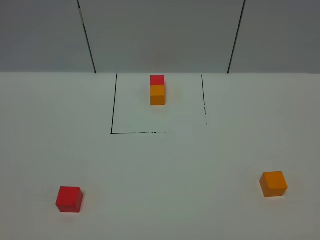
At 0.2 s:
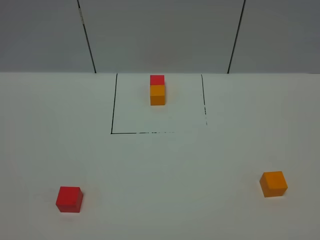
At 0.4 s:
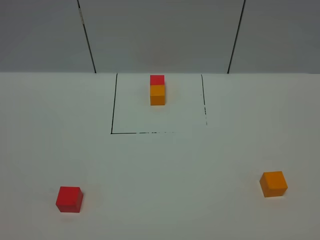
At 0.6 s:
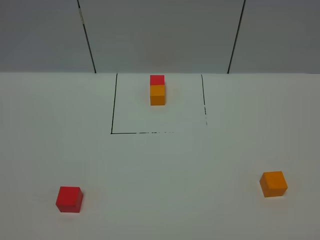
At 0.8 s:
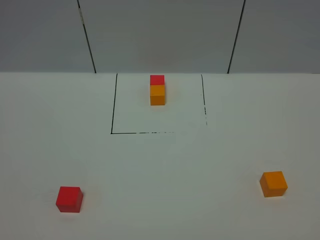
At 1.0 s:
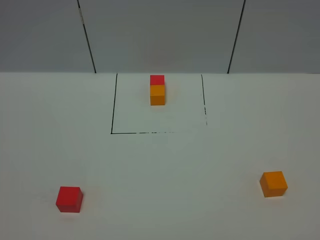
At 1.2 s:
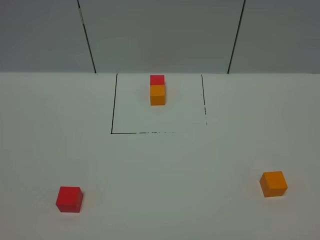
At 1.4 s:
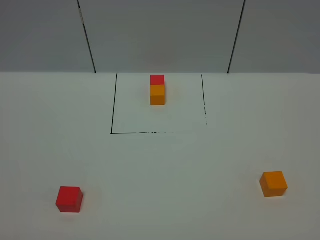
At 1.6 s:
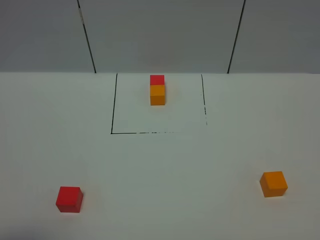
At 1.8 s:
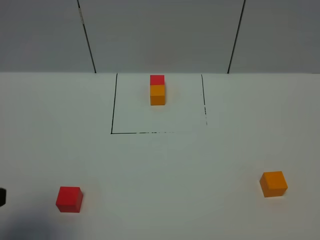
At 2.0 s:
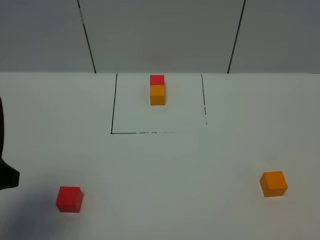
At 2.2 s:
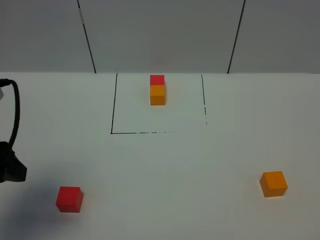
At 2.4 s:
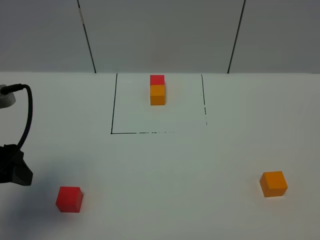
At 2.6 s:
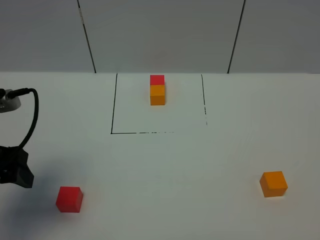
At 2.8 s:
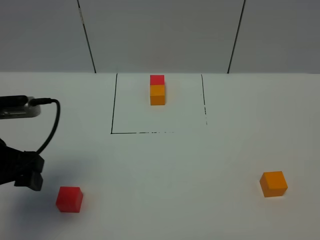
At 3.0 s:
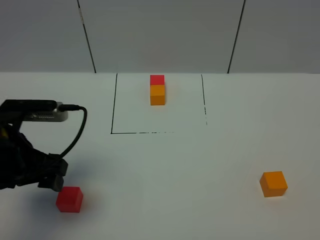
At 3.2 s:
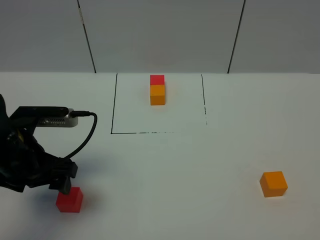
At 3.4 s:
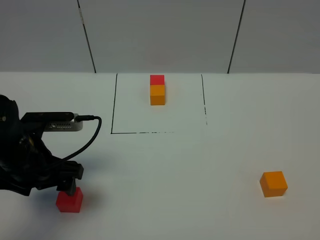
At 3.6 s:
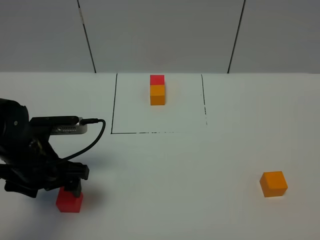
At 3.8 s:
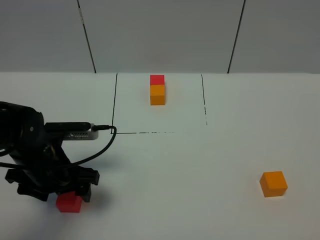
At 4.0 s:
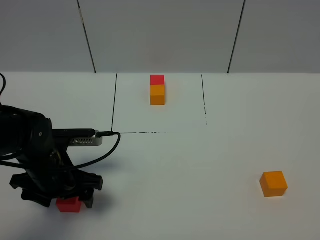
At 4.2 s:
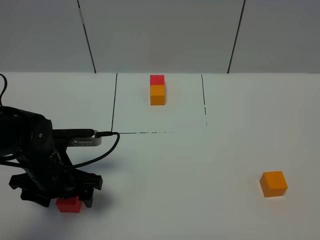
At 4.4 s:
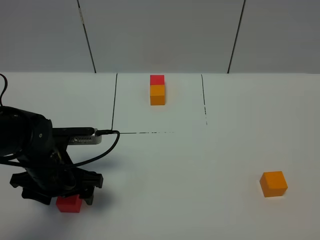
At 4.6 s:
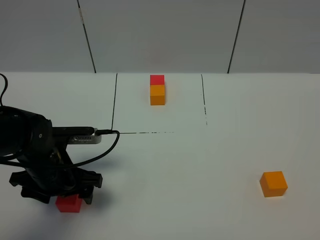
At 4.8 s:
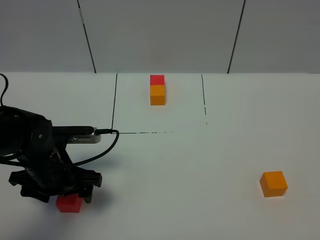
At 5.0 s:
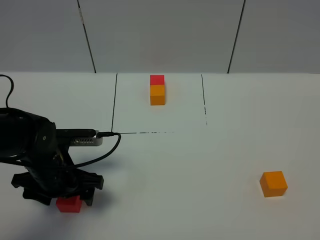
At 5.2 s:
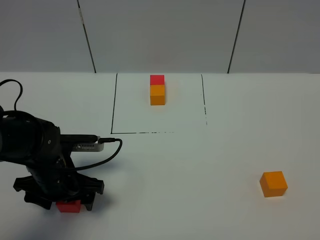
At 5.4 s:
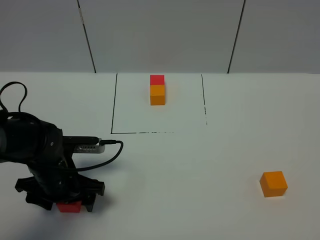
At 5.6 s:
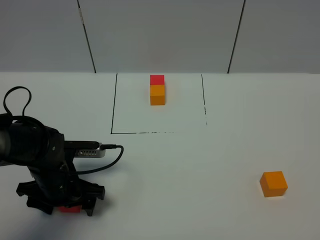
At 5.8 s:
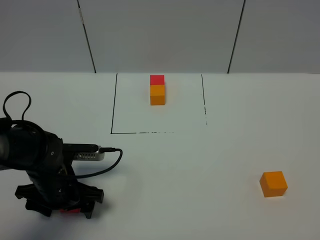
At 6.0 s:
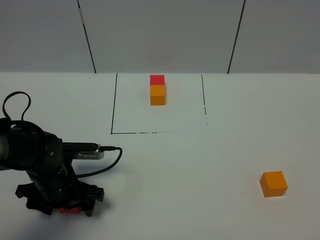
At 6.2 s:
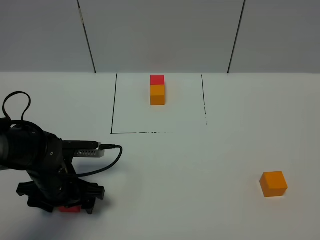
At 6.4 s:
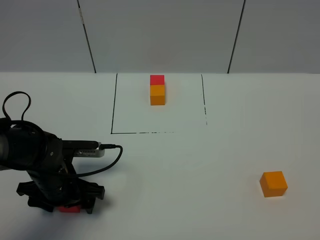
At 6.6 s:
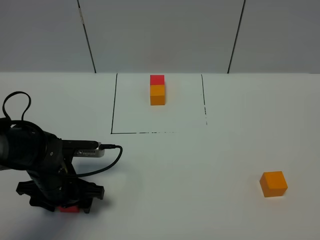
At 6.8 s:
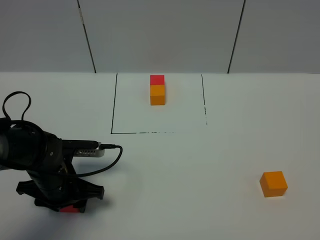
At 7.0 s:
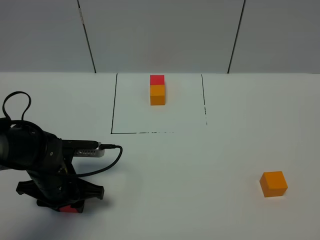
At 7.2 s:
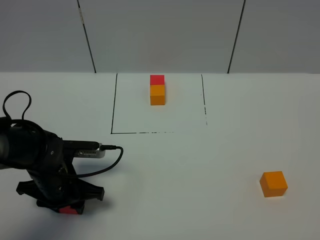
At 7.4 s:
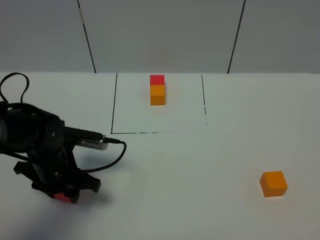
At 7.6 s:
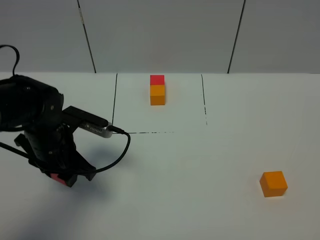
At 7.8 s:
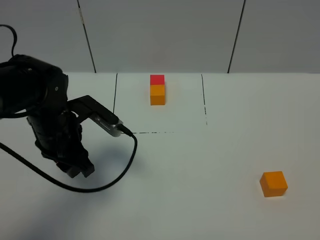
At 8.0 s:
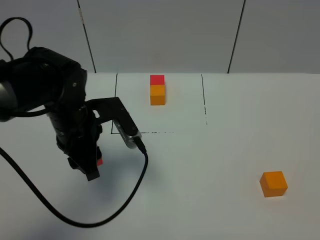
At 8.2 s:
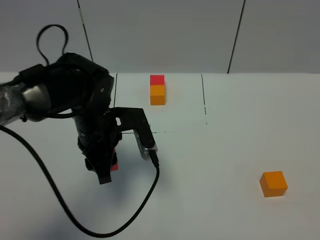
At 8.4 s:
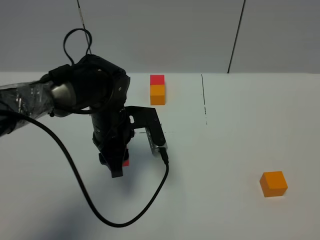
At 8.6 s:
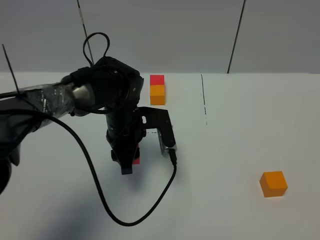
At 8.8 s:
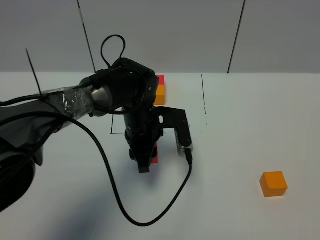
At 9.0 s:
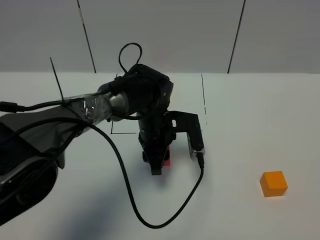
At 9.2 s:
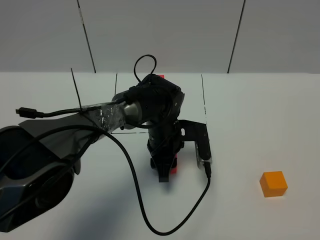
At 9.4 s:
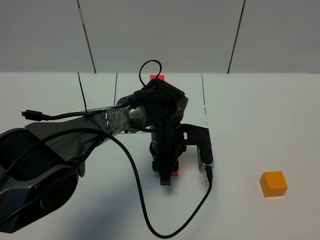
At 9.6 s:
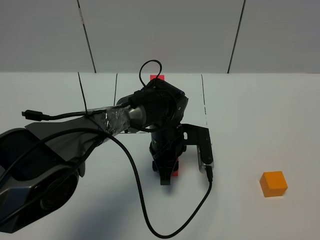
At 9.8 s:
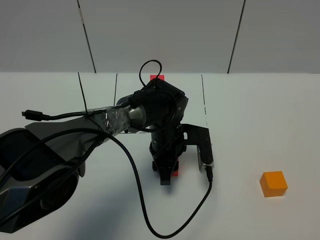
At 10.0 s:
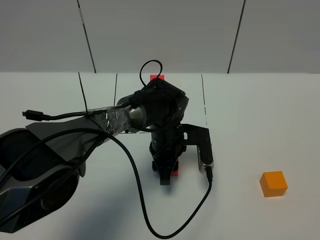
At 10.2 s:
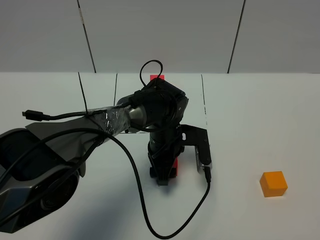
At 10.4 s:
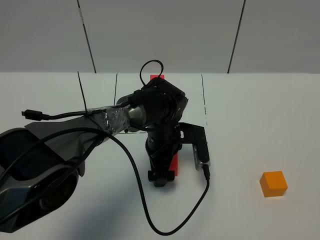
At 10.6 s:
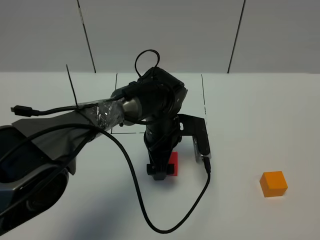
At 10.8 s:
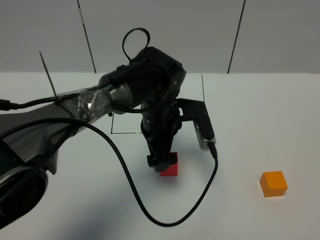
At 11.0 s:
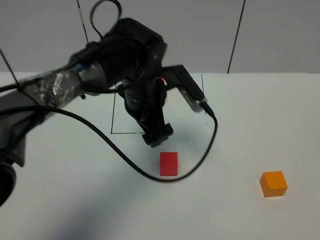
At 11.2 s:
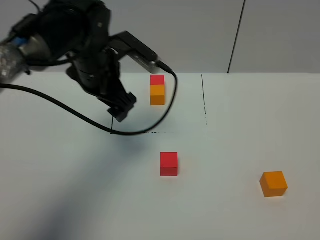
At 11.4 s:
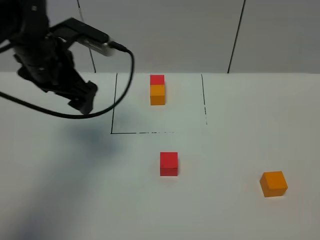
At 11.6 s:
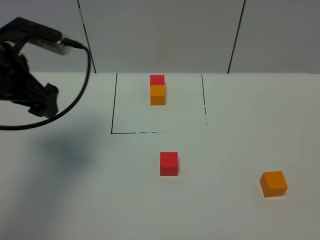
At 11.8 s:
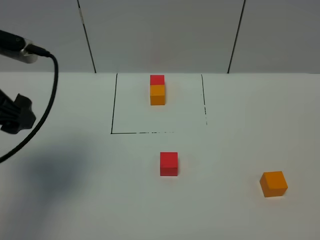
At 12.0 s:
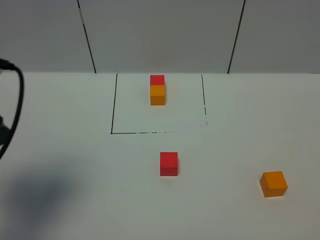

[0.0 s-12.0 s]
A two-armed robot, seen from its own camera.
Task of the whole recording: According to the building block template in front, assemble the scattered blocks together.
Step, 1.8 to 10.4 s: Put the red cube in the center of the table.
1.6 to 3.0 s: The left gripper shifts approximately 15 cm forward.
3.0 to 4.4 s: The left gripper heads downward, covering about 10 cm.
4.4 to 6.0 s: The grippers stay close to where they were, moving slightly.
6.0 to 7.6 s: The left gripper is displaced upward by roughly 10 cm, and closes its fingers.
7.6 to 9.0 s: The left gripper travels to the right by some 20 cm.
9.0 to 10.4 s: The left gripper opens its fingers.
10.4 to 12.0 s: The left gripper heads to the left, upward and backward, covering approximately 40 cm.

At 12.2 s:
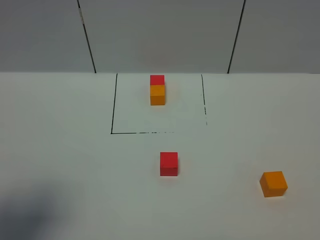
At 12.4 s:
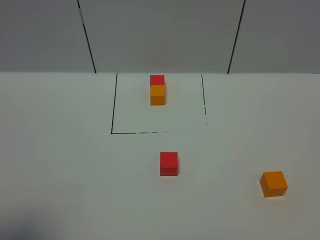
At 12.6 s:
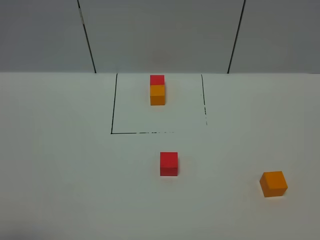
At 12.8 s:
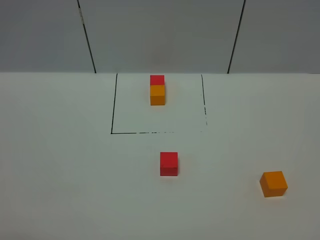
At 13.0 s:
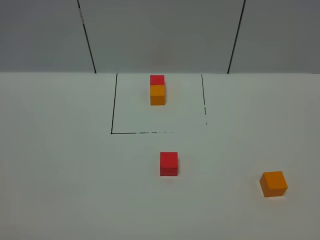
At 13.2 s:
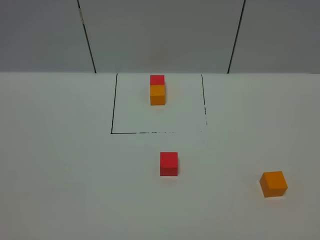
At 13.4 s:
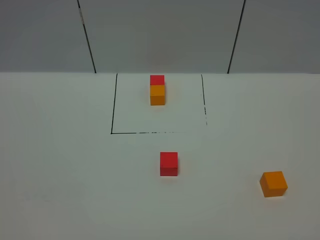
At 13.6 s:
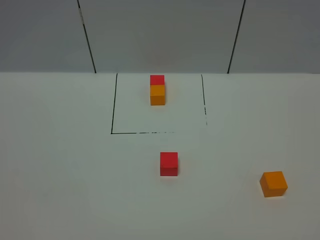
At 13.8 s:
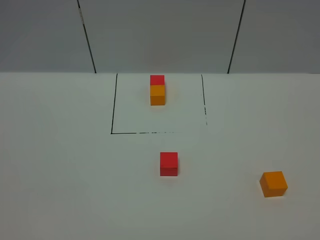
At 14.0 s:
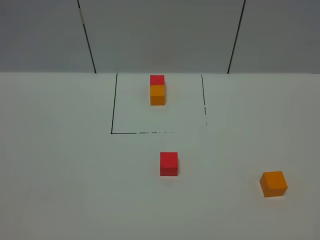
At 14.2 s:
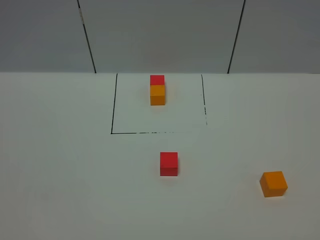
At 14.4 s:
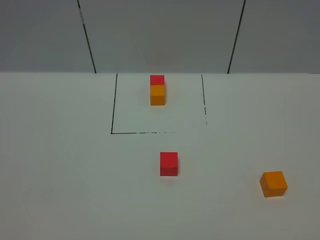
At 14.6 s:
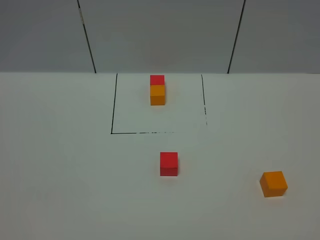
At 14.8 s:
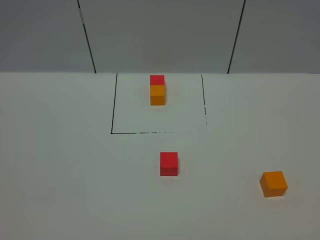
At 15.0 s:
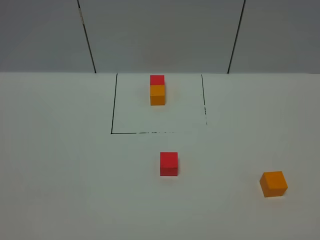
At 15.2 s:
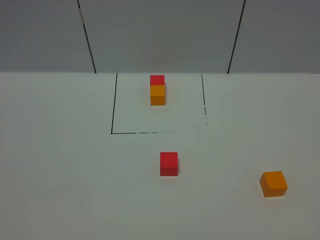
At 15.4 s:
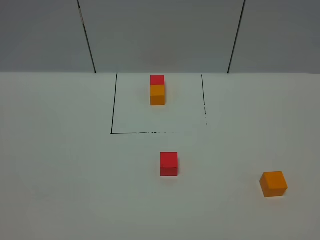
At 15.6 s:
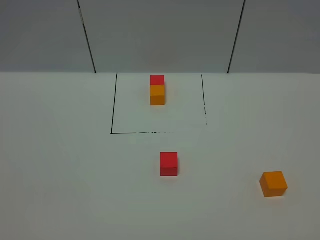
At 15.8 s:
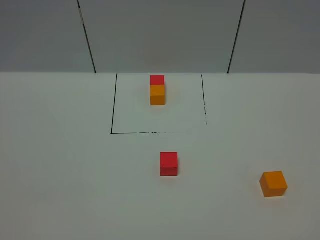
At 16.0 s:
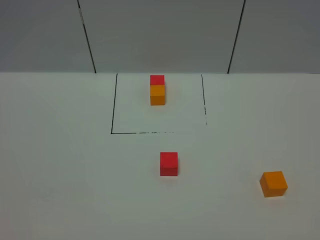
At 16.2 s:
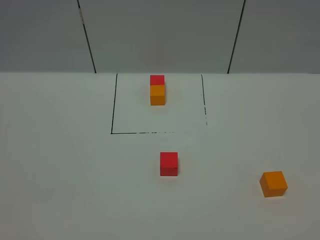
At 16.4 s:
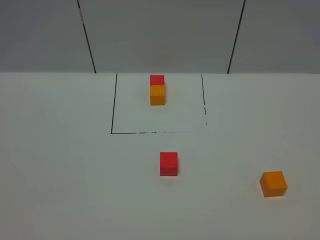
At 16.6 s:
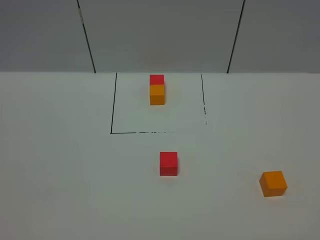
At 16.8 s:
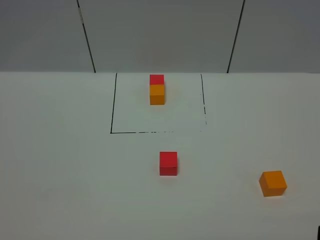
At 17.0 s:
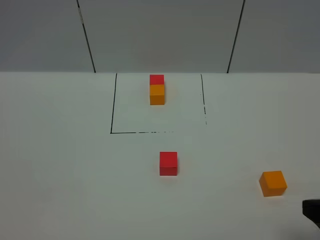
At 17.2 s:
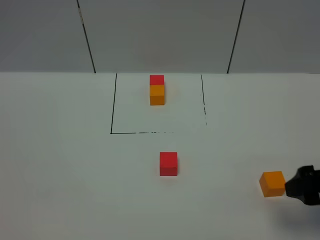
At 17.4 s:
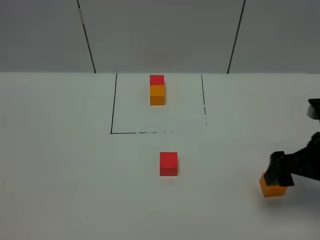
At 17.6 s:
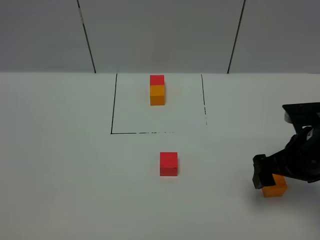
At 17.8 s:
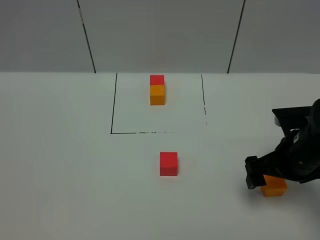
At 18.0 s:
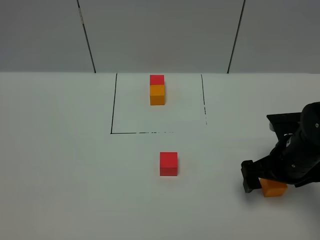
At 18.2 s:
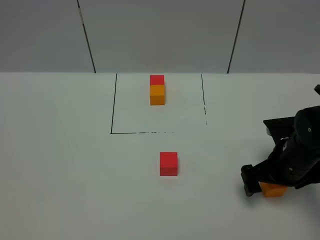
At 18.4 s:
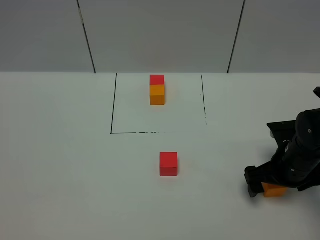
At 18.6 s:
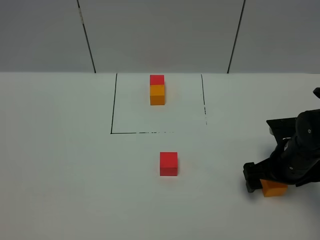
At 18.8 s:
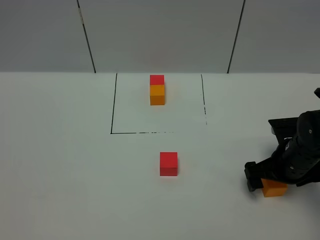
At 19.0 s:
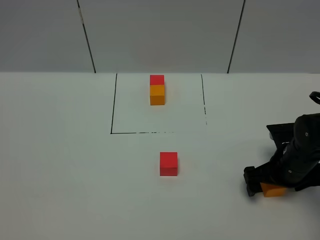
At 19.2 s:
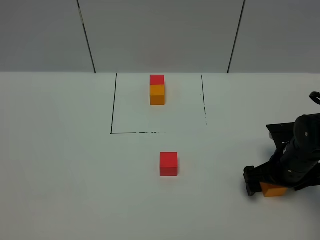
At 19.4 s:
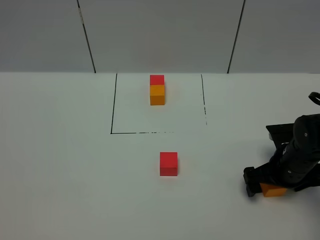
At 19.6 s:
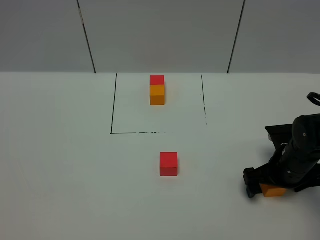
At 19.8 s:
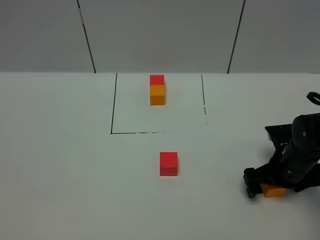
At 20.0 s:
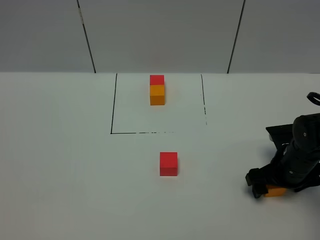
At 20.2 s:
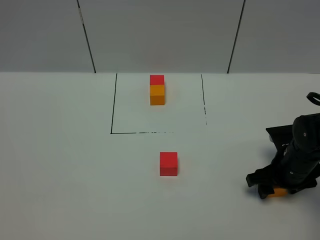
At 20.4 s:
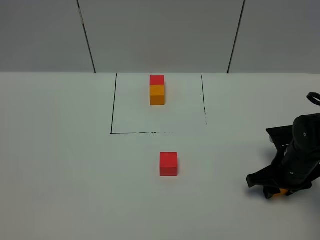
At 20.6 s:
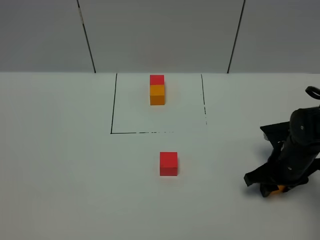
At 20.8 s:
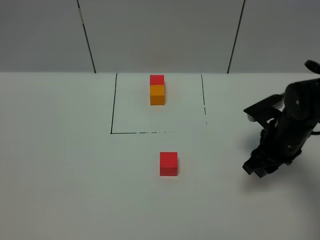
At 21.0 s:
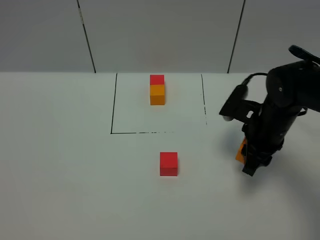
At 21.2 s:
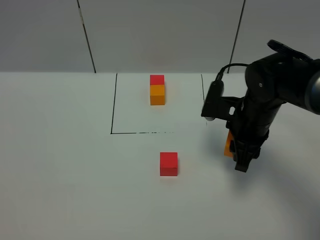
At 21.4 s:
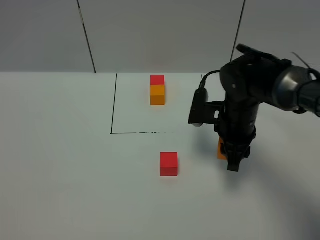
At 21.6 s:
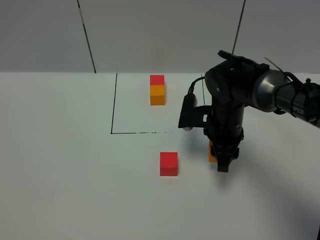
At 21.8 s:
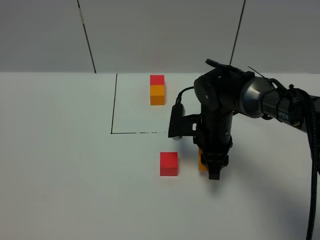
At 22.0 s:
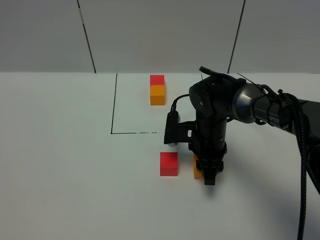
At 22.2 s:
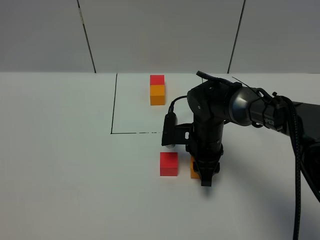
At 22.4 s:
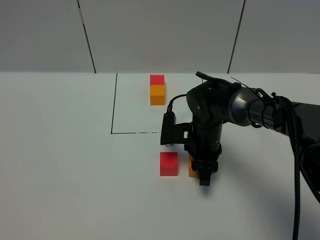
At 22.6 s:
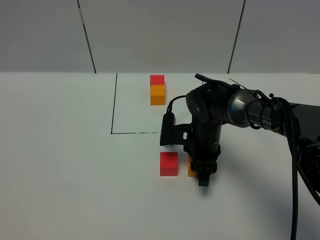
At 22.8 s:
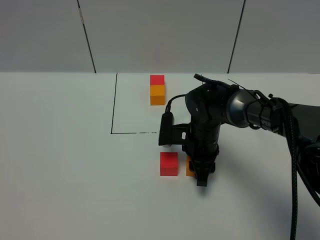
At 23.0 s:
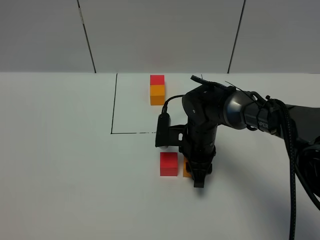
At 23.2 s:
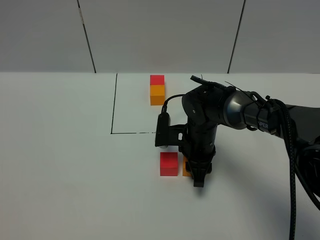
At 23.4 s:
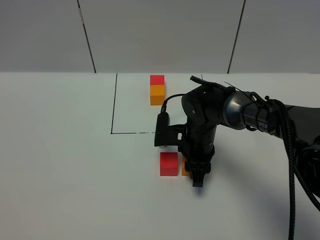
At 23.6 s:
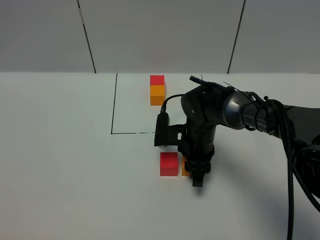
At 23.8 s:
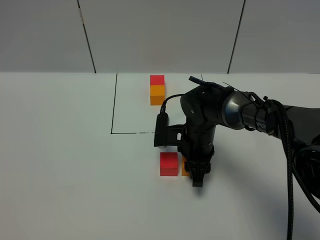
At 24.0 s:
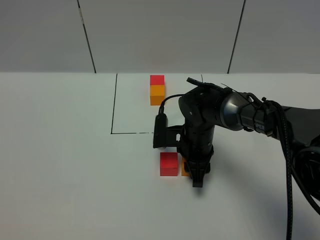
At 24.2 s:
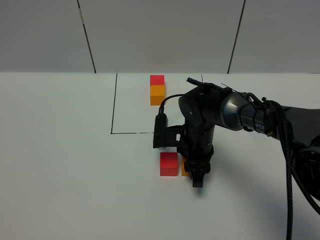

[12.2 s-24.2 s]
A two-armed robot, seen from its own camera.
Task of the whole recording: According to the building block template in front, assemble the scattered blocks together.
12.2 to 13.8 s: The left gripper travels backward and downward by about 15 cm.
13.8 to 15.2 s: The two grippers keep their place.
16.6 to 18.2 s: The right gripper travels forward and downward by some 30 cm.
18.2 to 19.8 s: The grippers move only a little.
19.8 to 21.2 s: The right gripper is displaced upward and to the left by roughly 15 cm, and closes its fingers.
21.2 to 22.6 s: The right gripper is displaced downward and to the left by some 10 cm.
22.6 to 24.2 s: The grippers make only small movements.
